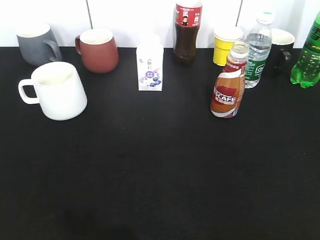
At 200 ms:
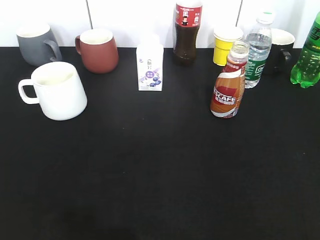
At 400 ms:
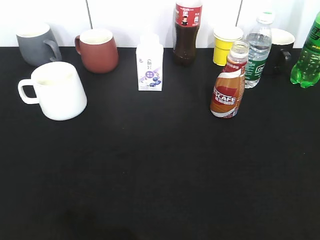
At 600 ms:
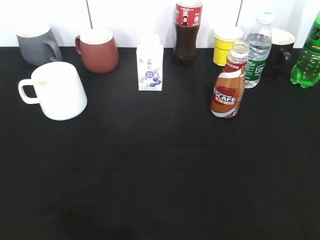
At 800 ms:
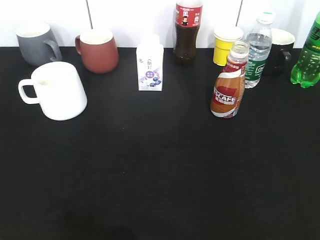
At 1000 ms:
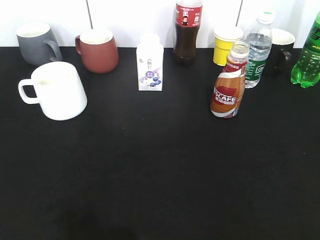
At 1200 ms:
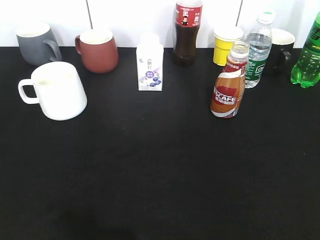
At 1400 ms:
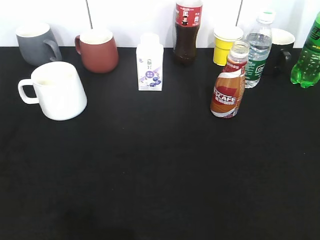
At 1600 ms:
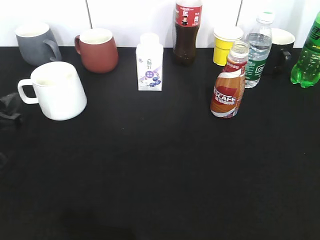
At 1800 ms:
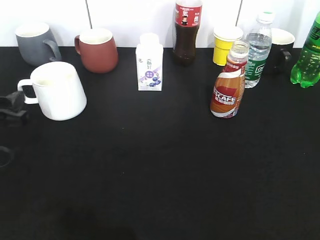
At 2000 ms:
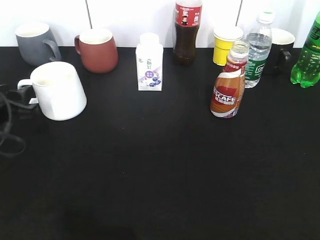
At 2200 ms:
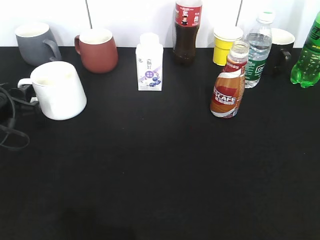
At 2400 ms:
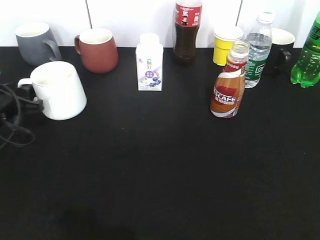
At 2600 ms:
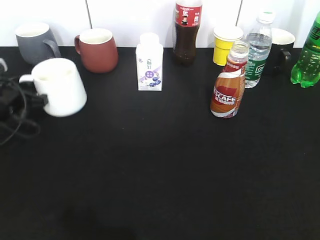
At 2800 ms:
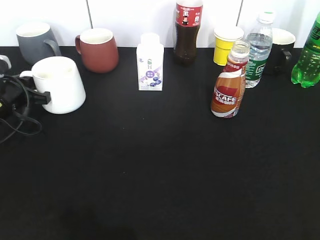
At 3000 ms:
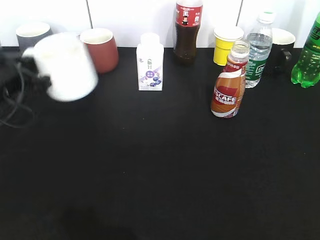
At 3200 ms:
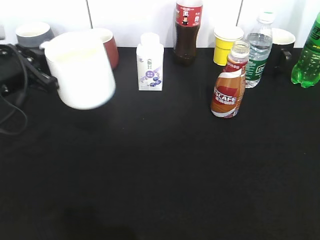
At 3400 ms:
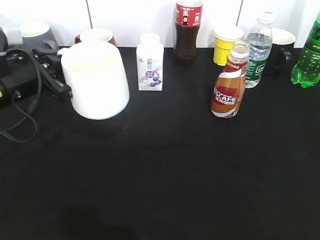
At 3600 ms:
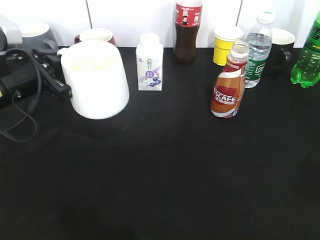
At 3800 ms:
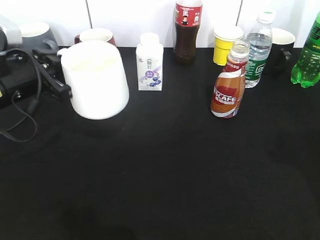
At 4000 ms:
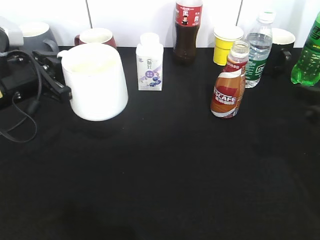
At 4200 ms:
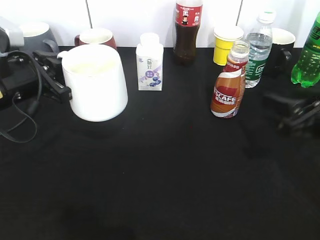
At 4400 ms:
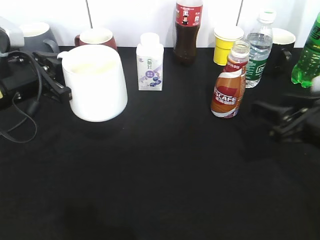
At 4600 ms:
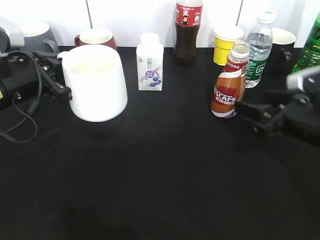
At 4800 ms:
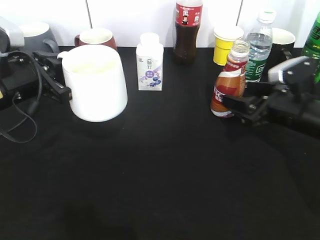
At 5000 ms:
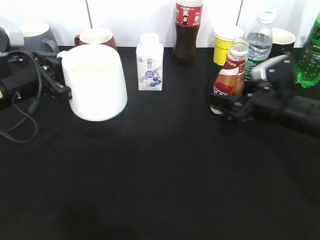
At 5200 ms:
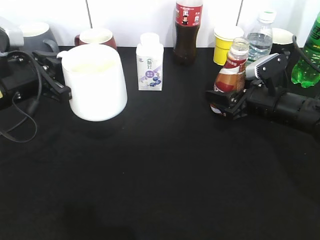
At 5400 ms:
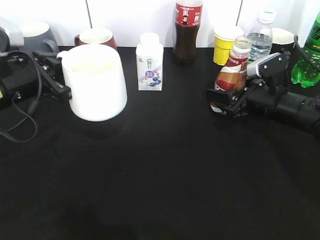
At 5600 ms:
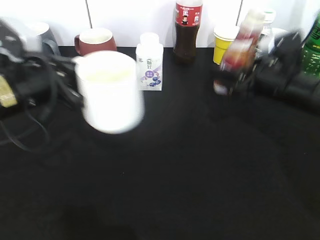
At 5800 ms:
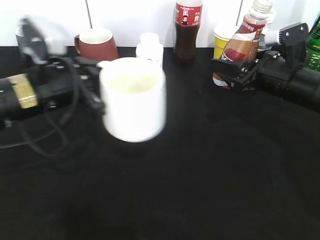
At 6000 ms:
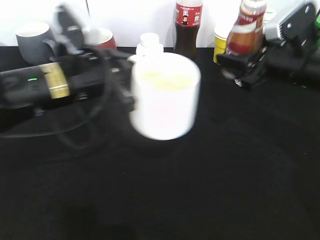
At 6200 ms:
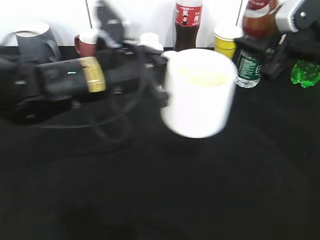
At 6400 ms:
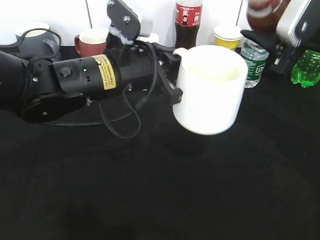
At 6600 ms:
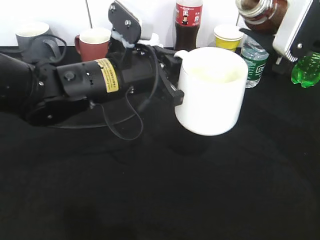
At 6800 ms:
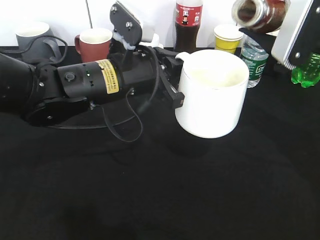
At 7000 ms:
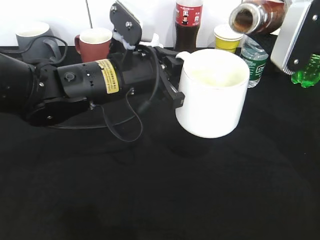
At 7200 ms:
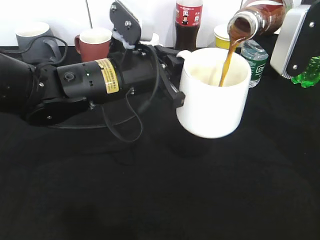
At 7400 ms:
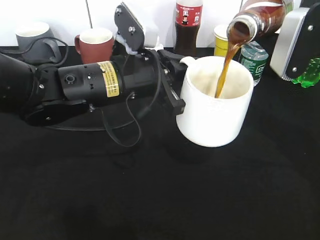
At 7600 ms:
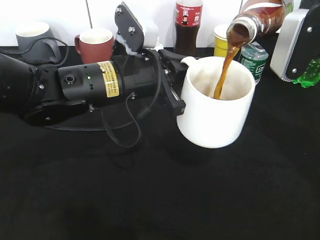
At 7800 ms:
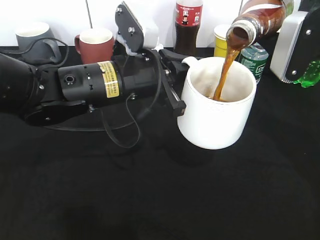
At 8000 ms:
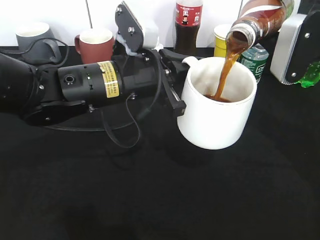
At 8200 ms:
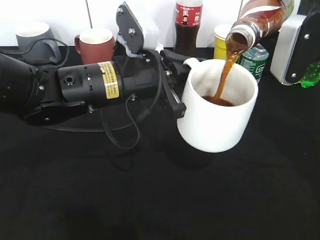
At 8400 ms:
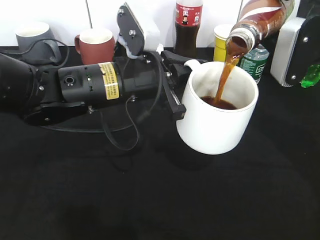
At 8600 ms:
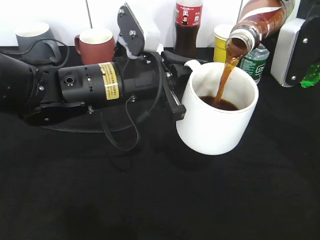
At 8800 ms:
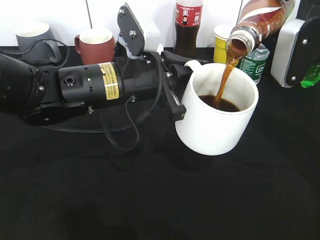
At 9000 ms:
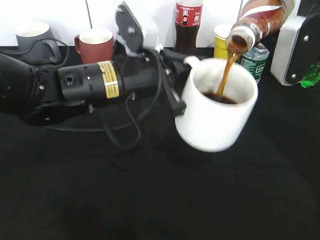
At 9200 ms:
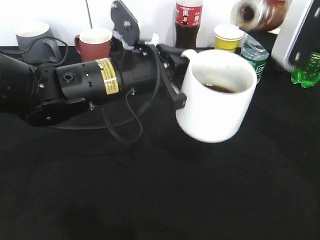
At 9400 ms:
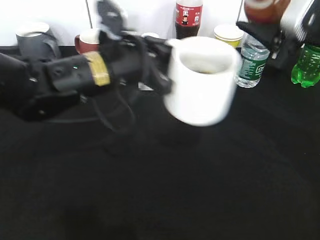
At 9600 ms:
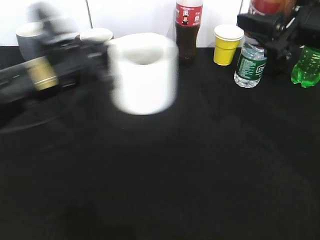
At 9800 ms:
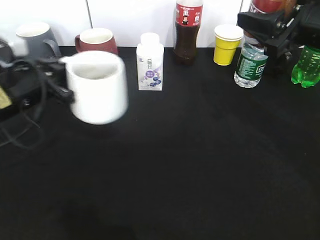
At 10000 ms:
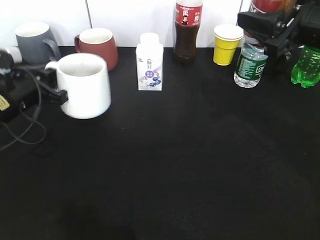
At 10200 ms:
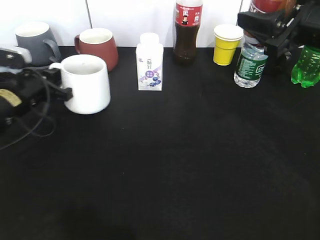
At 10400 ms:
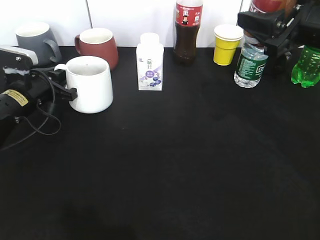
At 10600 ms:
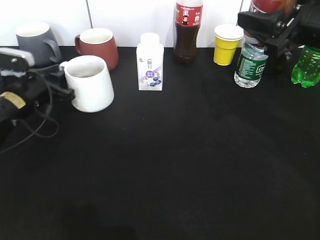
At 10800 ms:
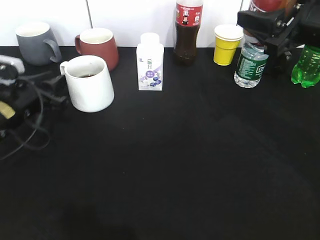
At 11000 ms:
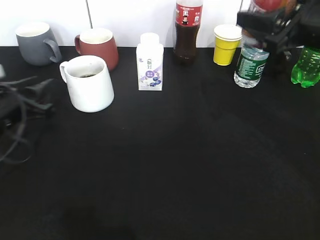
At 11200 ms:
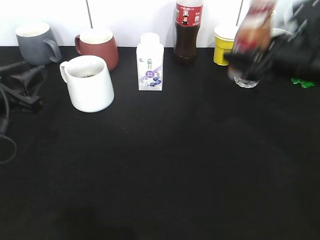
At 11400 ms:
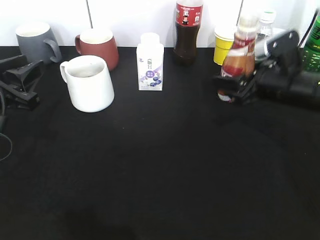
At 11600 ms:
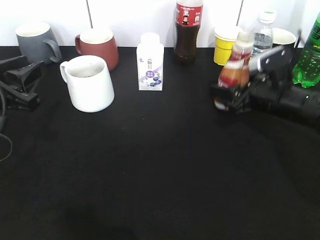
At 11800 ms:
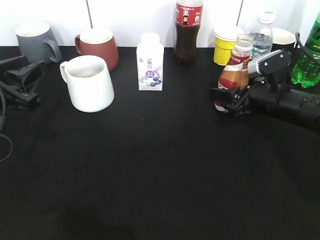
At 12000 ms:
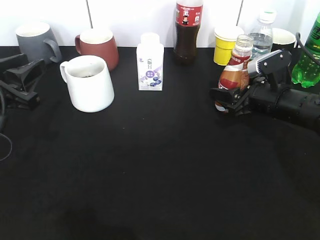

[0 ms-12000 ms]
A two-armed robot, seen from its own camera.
Step, 800 ms to 2600 ms: Grasp the white cup with left gripper.
Step, 2800 ms to 3200 ms: Lift the white cup with left gripper.
Step, 3600 ms to 5000 ms: Grasp the bottle with coffee with right gripper.
Step, 5400 ms to 9600 ms: Pour the coffee from bottle to cup with right gripper.
Step, 9800 ms to 10600 ms: Place the white cup on the table with left gripper.
0 ms to 1600 ms: The left gripper goes some 25 cm forward and downward, and opens.
1600 ms to 3000 ms: The left gripper heads forward, covering approximately 10 cm, and closes its fingers.
3000 ms to 4400 ms: The left gripper ends up about 5 cm from where it was. The right gripper heads forward and downward, covering approximately 25 cm.
4400 ms to 6000 ms: The left gripper is displaced to the right by some 10 cm. Meanwhile the right gripper heads forward and upward, covering roughly 10 cm, and closes.
6000 ms to 7600 ms: The right gripper heads upward, covering roughly 5 cm; the left gripper goes roughly 5 cm to the right.
7600 ms to 9000 ms: The grippers move only a little.
9000 ms to 10400 ms: The left gripper is displaced to the left, downward and forward by roughly 25 cm.
10400 ms to 12000 ms: The left gripper travels backward and upward by approximately 15 cm, and opens its fingers. The right gripper goes some 15 cm downward.

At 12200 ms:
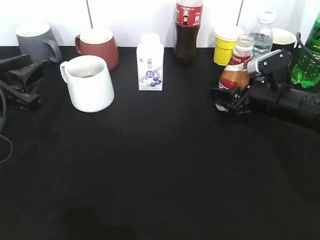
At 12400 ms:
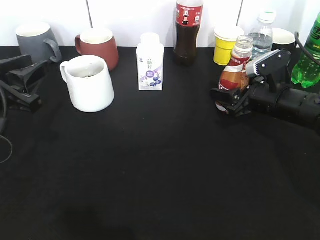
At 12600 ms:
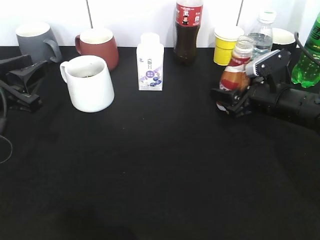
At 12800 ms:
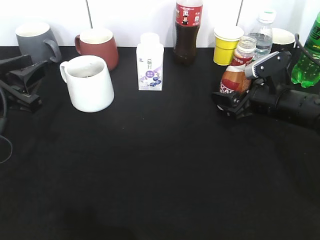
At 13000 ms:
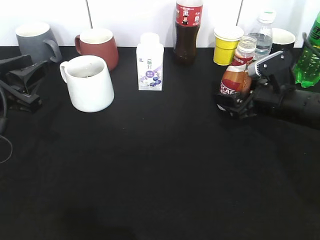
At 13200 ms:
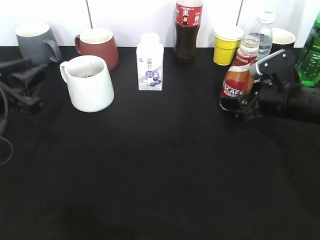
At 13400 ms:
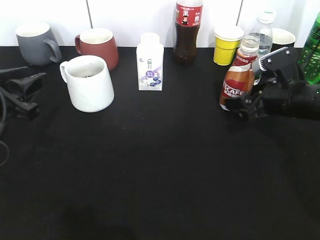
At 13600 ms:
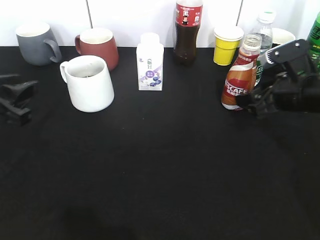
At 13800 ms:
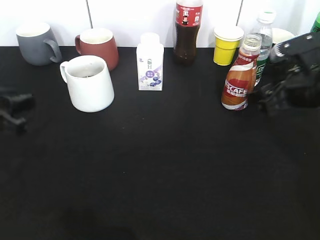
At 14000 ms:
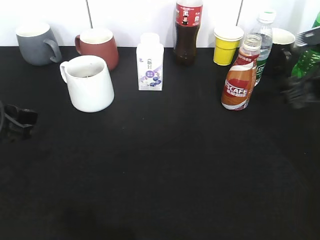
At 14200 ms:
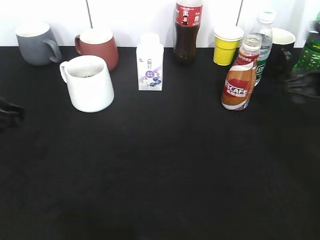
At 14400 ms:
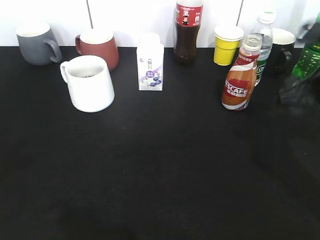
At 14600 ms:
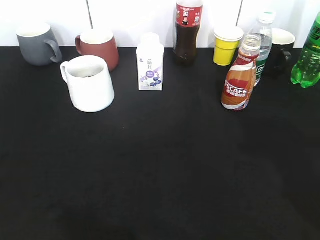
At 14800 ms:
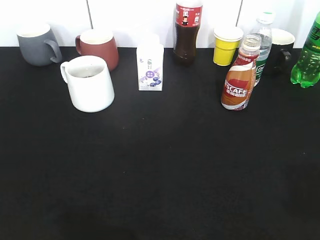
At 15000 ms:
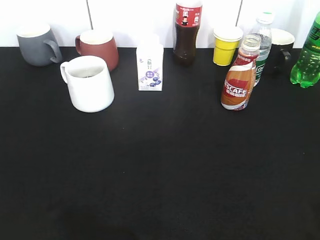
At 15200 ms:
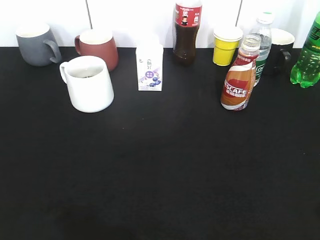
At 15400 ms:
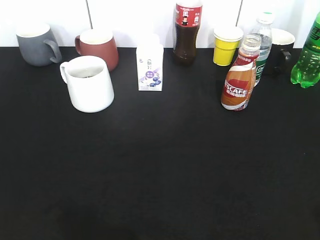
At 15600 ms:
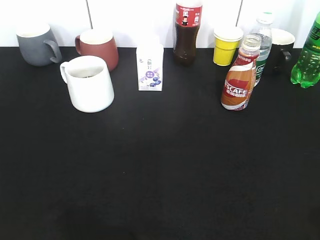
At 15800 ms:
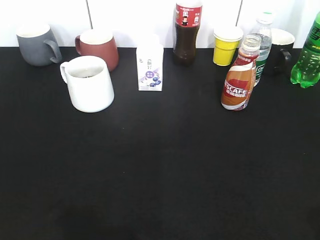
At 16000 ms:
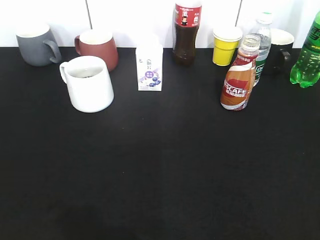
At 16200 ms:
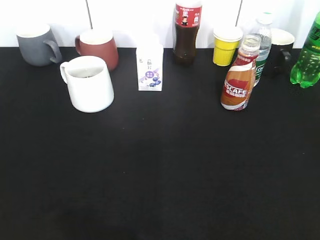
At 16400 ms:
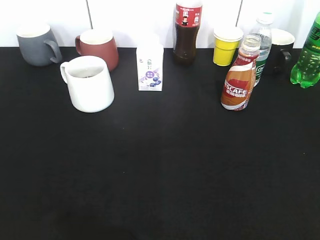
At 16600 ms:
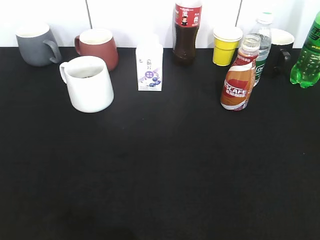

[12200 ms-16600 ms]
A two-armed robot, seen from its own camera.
12200 ms to 13600 ms: The right gripper moves about 5 cm, and opens its fingers.
13600 ms to 15200 ms: The grippers both shift backward and upward by roughly 25 cm. The right gripper closes.
